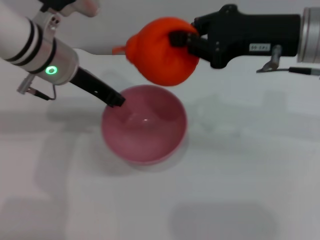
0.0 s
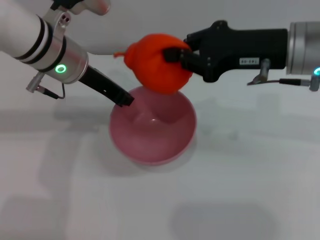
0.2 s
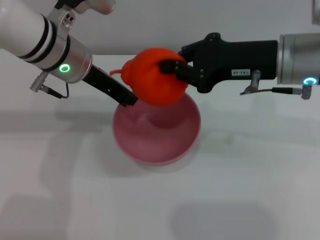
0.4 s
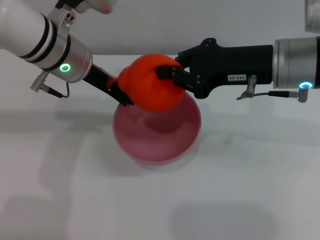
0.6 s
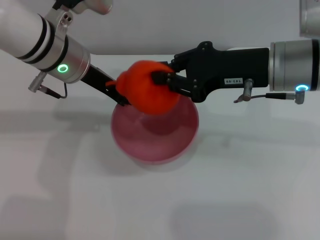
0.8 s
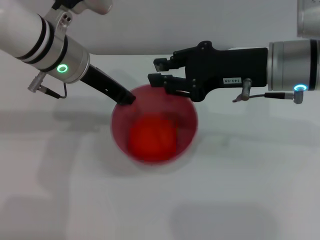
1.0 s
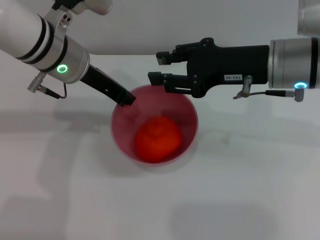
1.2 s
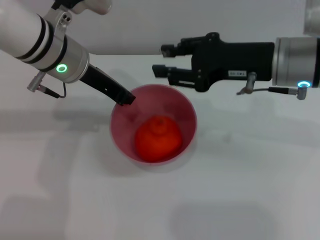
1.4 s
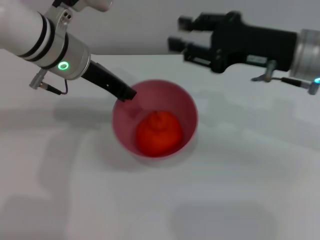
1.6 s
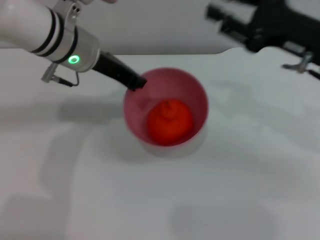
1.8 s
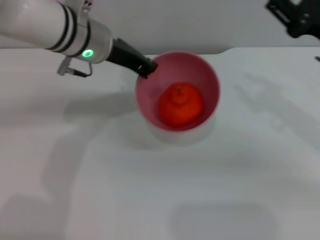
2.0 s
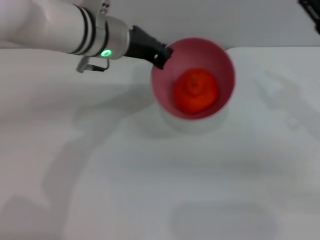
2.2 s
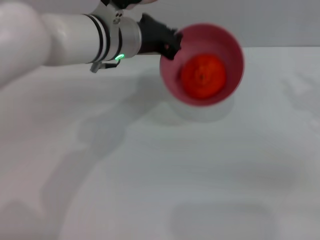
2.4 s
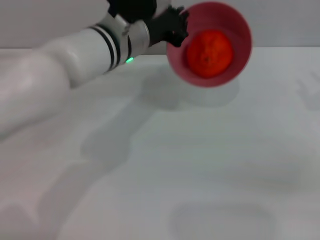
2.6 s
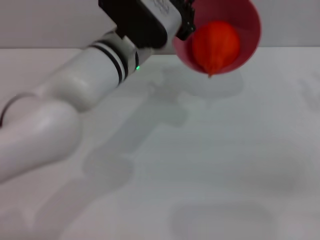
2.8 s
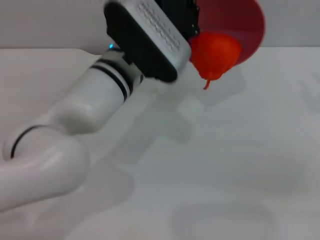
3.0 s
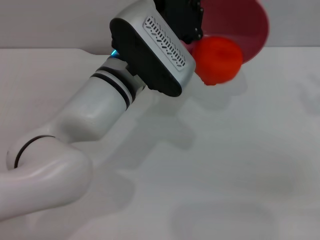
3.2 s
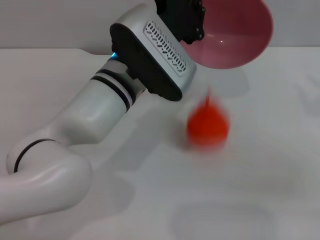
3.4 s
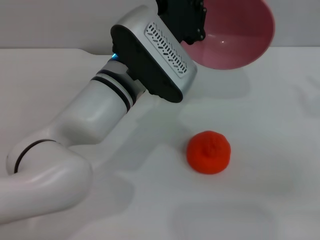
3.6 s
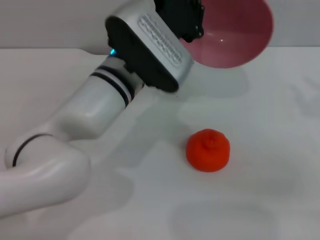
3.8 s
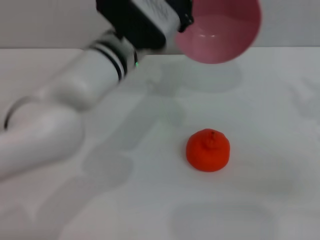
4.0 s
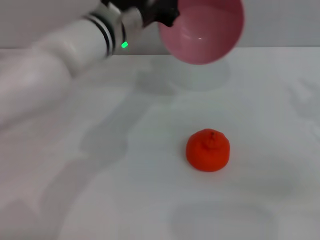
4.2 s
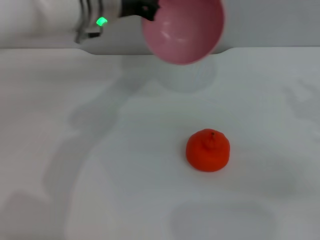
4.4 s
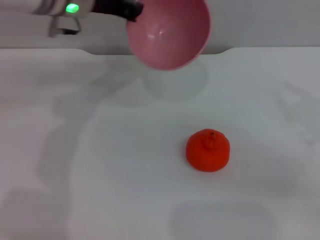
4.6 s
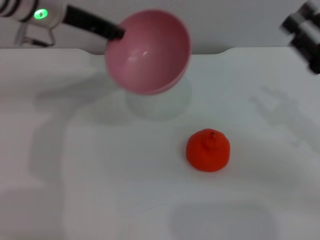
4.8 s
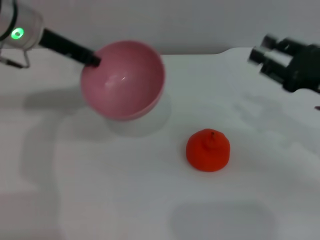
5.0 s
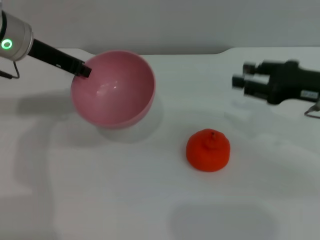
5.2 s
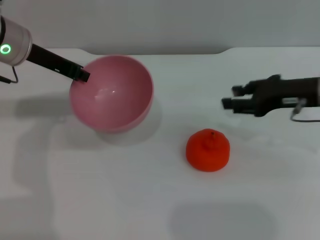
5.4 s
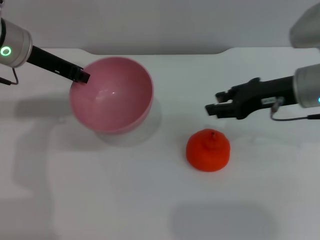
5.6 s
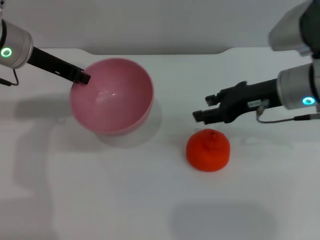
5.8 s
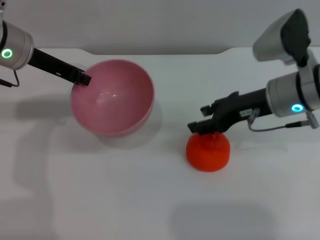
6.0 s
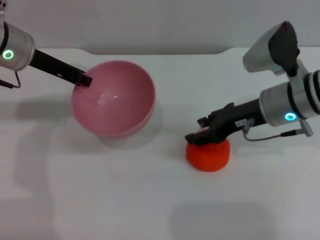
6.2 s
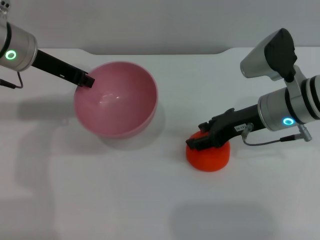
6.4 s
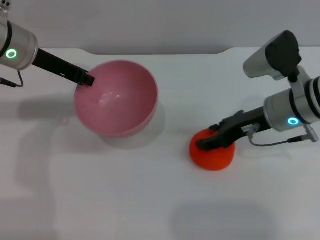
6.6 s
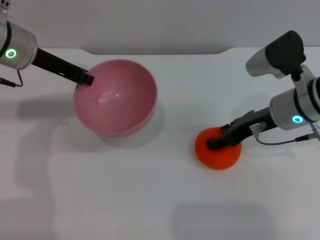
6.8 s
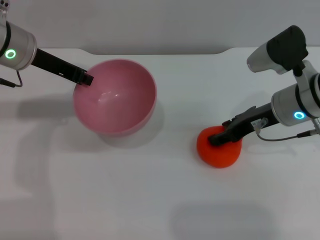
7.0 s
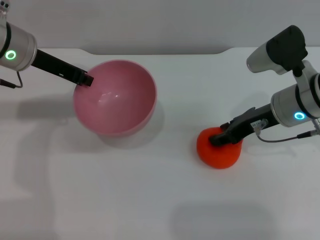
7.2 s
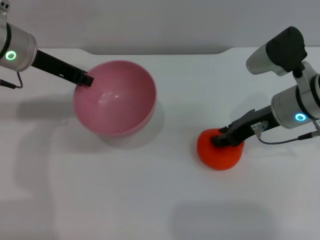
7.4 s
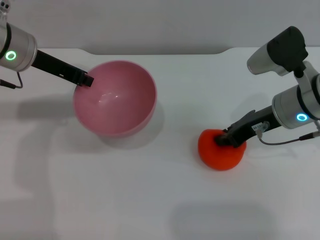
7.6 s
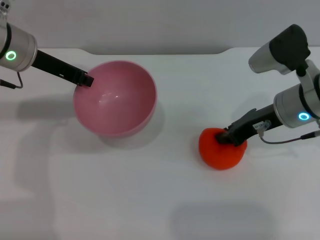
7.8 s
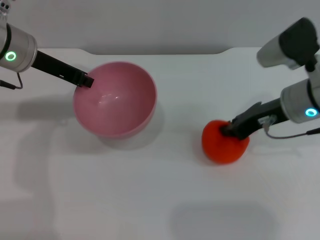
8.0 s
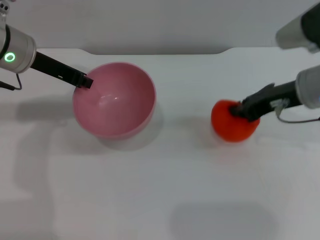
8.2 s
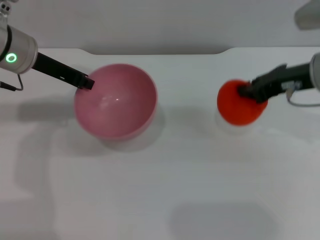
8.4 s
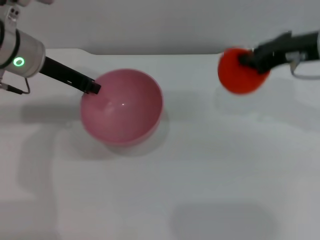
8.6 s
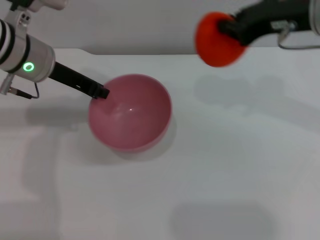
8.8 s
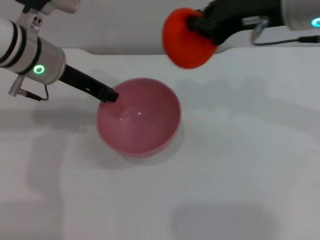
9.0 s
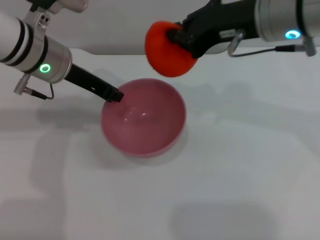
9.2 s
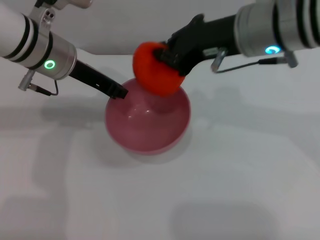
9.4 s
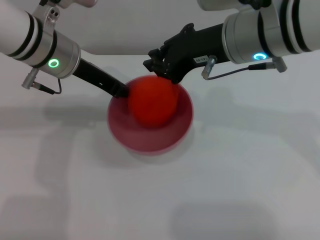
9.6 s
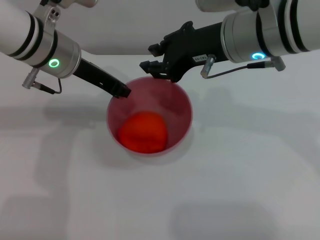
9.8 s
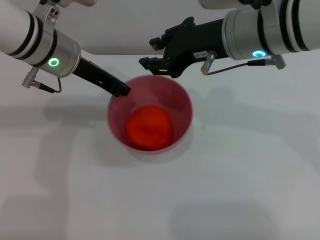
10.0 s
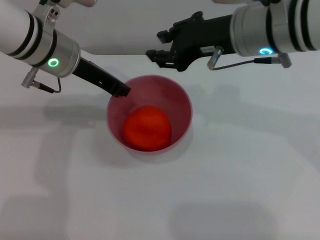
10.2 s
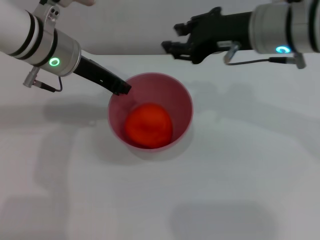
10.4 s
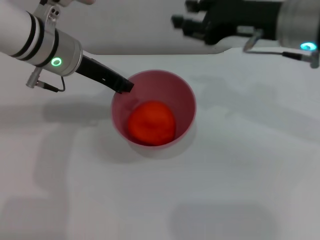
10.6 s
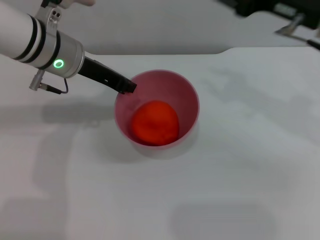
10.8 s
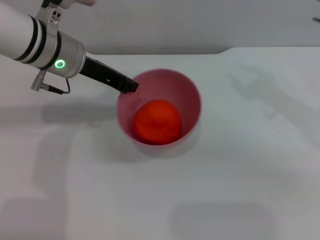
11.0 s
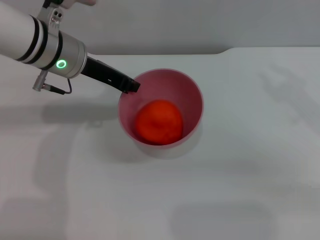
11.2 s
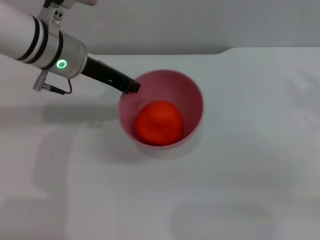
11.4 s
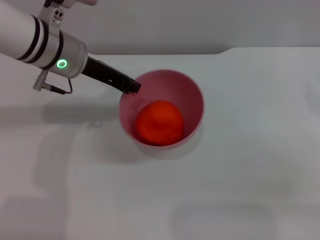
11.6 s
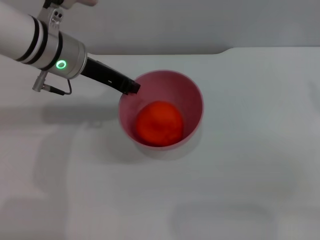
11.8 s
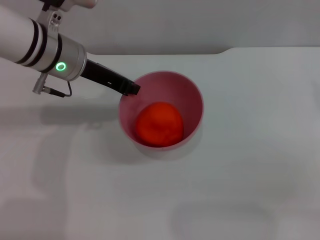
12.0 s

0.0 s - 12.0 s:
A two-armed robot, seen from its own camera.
Task of the whole recording: put the orange into the pink bowl and pour it out repeatedly.
Step, 0.0 s - 1.6 s: Place the orange into the bowl.
Step, 1.8 s - 3.6 s: Pour the orange out of the bowl.
Step, 3.8 s - 8.2 s: Pick up the orange with the right gripper.
Step, 8.4 s - 10.4 s: Place the orange into the bowl.
0.0 s - 1.6 s: The right gripper opens.
1.6 s - 3.0 s: The left gripper travels to the right by roughly 10 cm. The right gripper is displaced to the right and backward by about 15 cm.
3.0 s - 4.4 s: The left gripper heads forward, covering about 10 cm.
4.4 s - 6.0 s: The left gripper goes about 10 cm to the left, while the right gripper goes roughly 15 cm to the left and forward.
6.0 s - 7.6 s: The right gripper closes up.
7.6 s - 9.0 s: The right gripper is displaced upward by approximately 15 cm, and closes.
9.0 s - 10.4 s: The right gripper opens.
10.4 s - 12.0 s: The right gripper shifts approximately 20 cm to the right and backward.

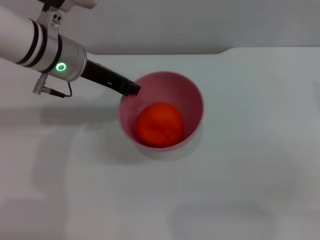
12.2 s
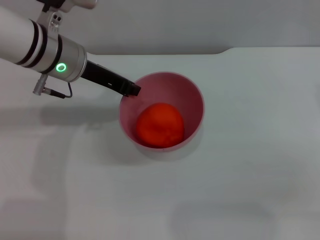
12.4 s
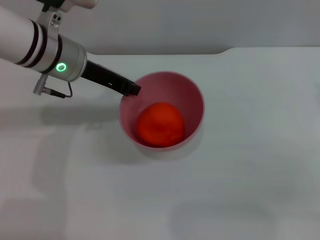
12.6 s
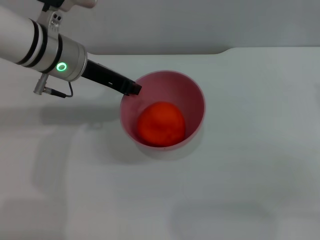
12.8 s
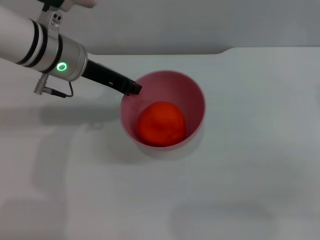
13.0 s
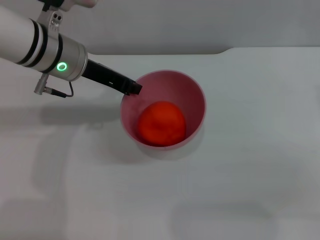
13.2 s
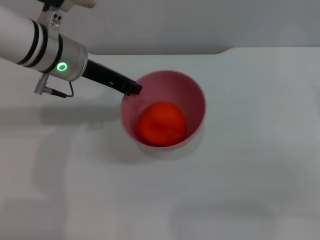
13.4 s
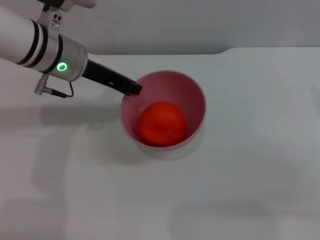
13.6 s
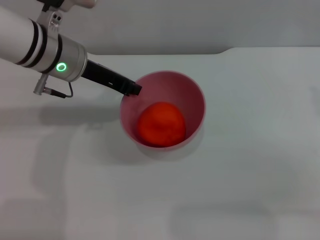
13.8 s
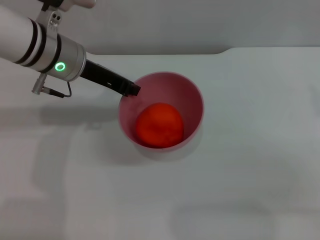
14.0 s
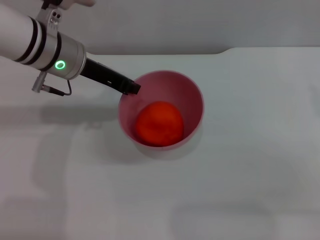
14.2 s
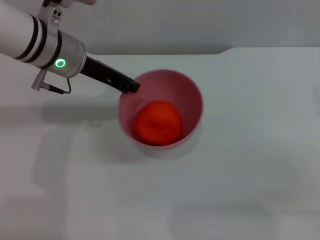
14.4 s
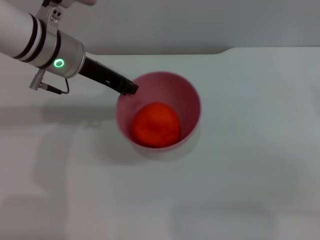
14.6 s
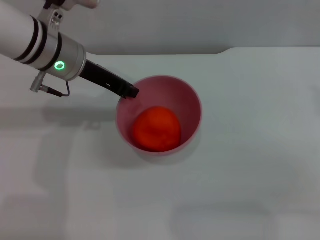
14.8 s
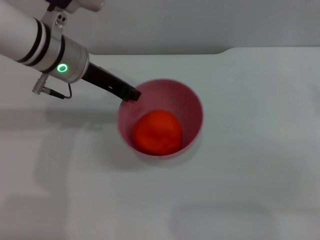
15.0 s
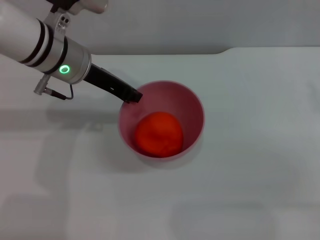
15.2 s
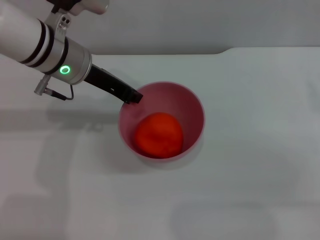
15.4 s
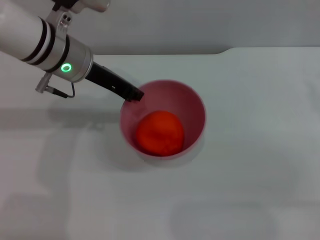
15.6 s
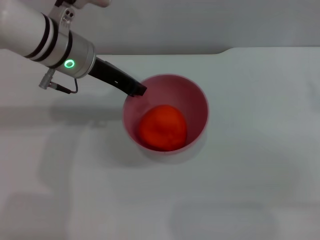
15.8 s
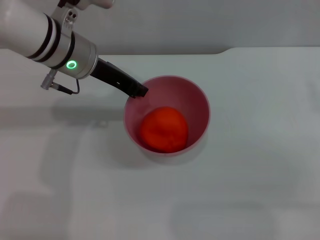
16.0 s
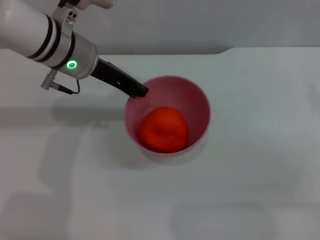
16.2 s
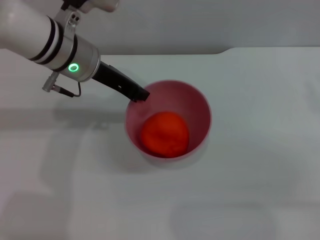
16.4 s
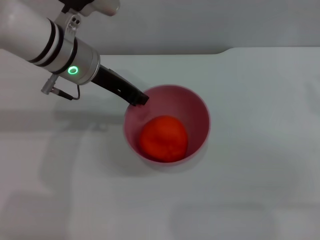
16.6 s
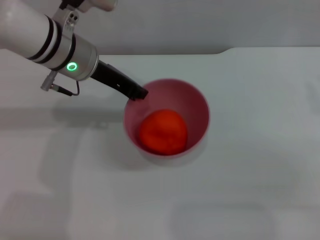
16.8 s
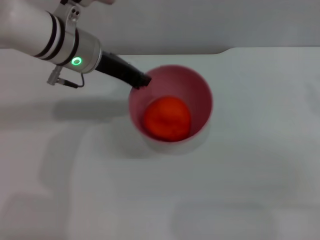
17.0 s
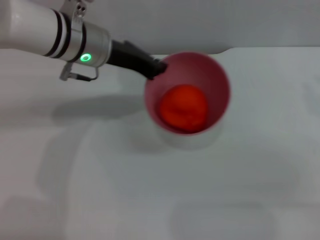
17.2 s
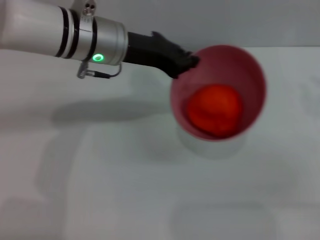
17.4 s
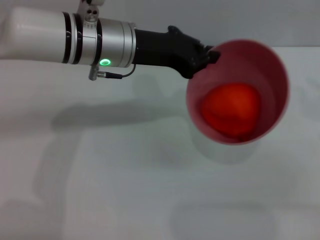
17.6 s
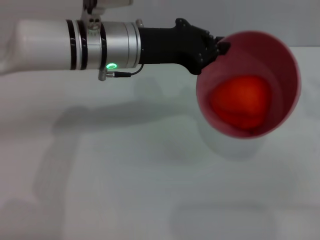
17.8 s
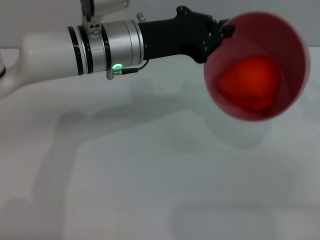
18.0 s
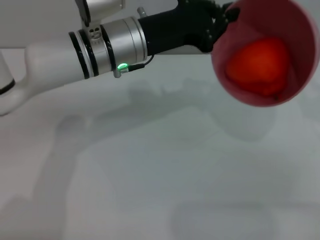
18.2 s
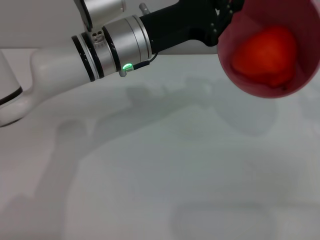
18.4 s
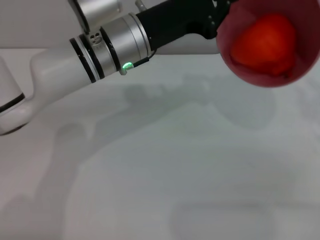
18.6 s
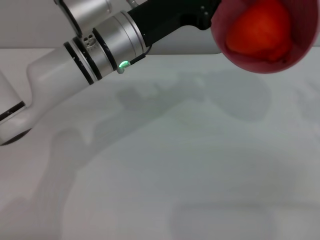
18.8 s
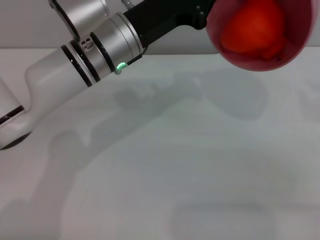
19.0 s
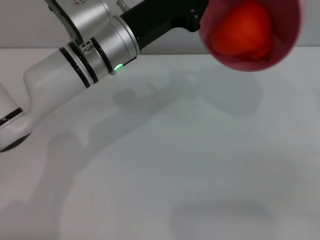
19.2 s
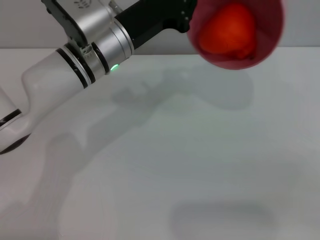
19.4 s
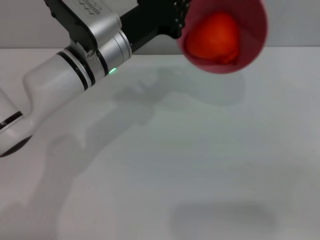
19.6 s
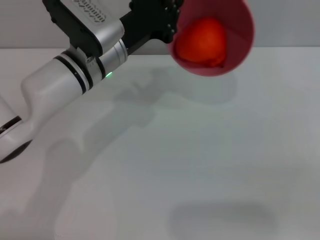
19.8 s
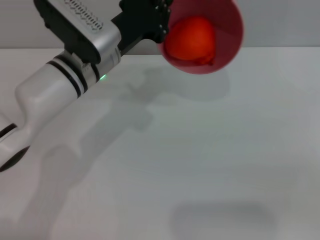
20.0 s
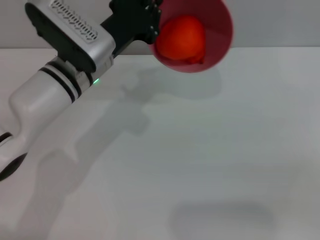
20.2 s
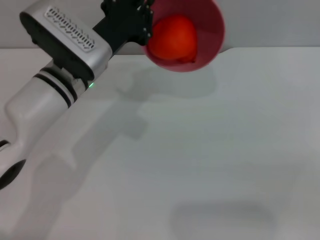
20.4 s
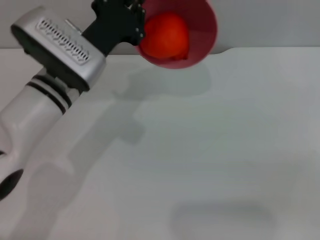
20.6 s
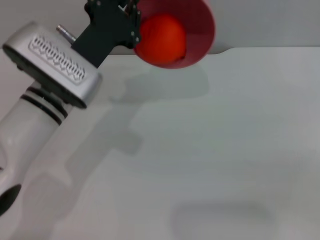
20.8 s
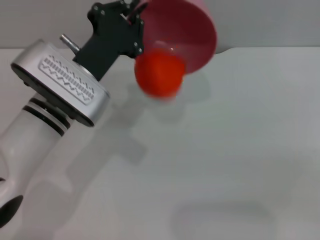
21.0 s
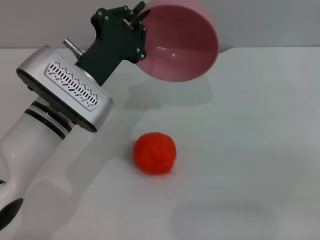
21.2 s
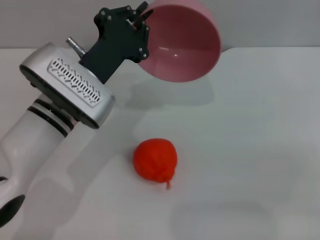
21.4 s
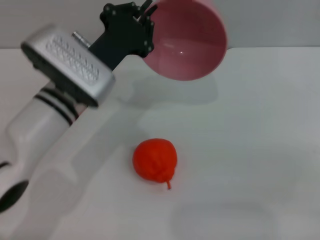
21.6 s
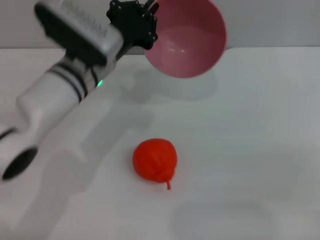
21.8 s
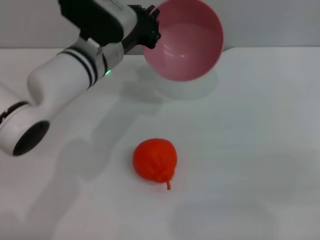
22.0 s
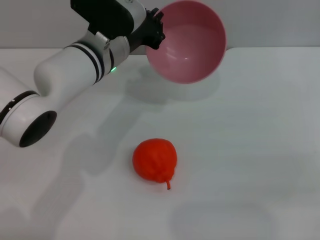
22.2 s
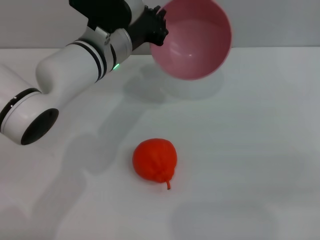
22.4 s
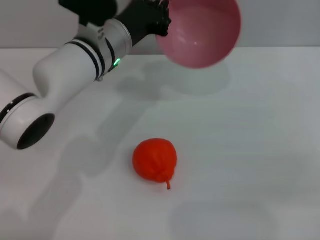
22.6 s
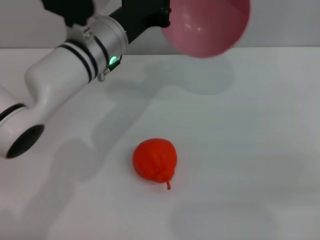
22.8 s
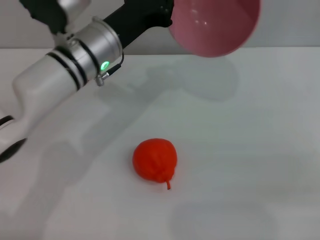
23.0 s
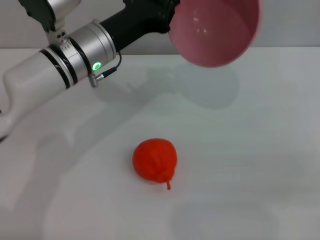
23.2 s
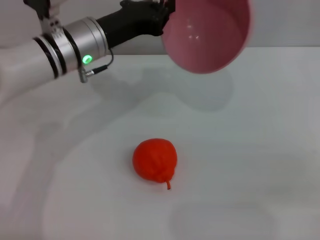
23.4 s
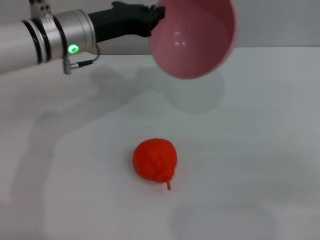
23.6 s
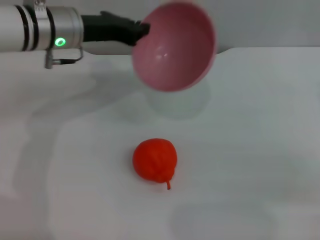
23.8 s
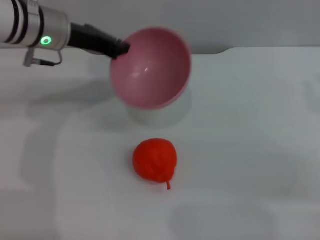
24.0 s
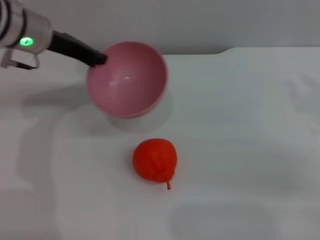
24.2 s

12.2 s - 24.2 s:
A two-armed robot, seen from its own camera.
Task of the whole recording: put the orange into the pink bowl and pour it out repeatedly.
Step, 12.2 s - 21.0 s: Pour the orange out of the bowl.
12.2 s - 13.8 s: The two grippers keep their place.
13.8 s - 15.2 s: There are only small adjustments of the grippers.
15.2 s - 16.6 s: Neither gripper changes place.
16.6 s - 18.2 s: The left gripper heads to the right, covering approximately 5 cm.
18.2 s - 19.8 s: The right gripper is displaced to the right by approximately 5 cm.
19.8 s - 21.2 s: The left gripper heads backward, covering about 5 cm.
21.2 s - 22.6 s: The left gripper is displaced forward by some 5 cm.
22.6 s - 24.2 s: The left gripper goes approximately 10 cm to the left.
